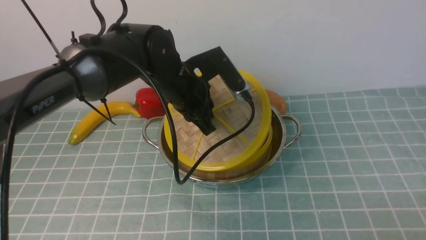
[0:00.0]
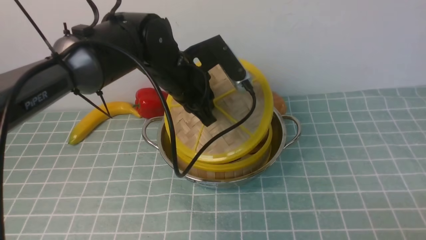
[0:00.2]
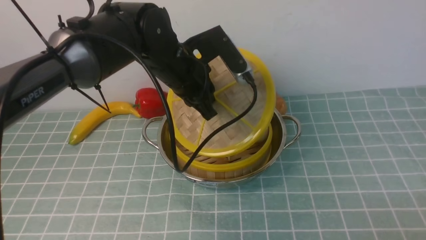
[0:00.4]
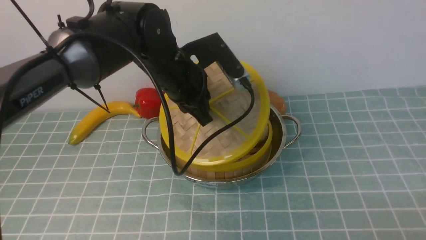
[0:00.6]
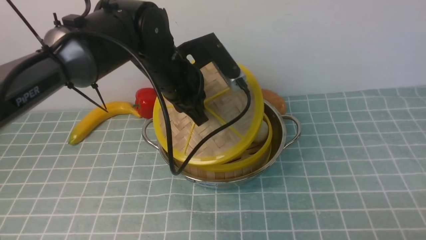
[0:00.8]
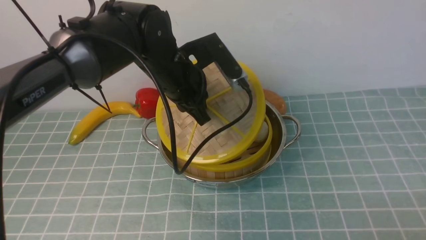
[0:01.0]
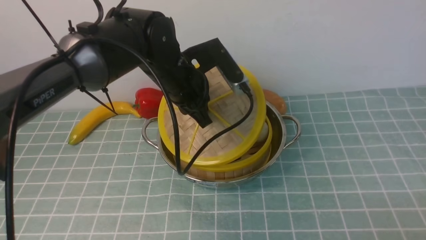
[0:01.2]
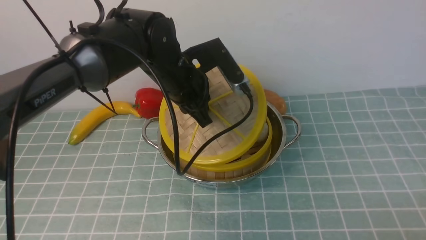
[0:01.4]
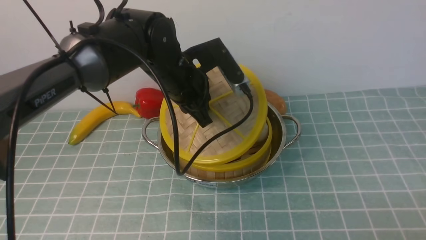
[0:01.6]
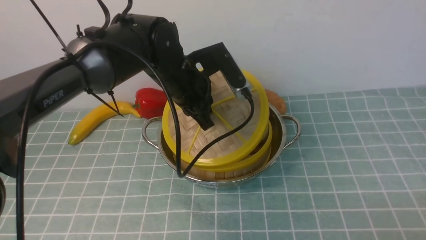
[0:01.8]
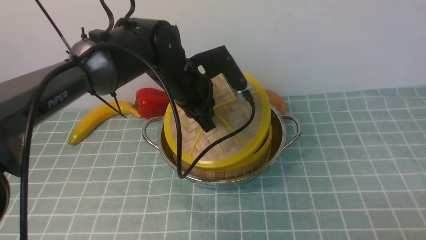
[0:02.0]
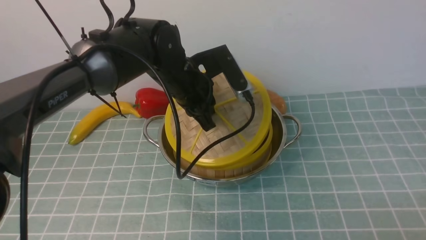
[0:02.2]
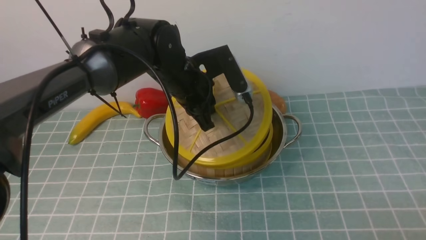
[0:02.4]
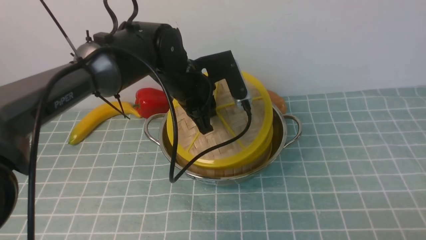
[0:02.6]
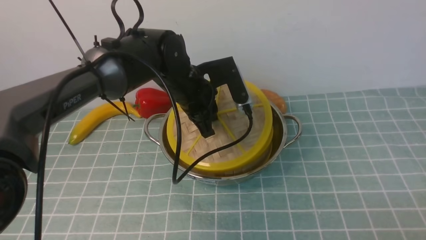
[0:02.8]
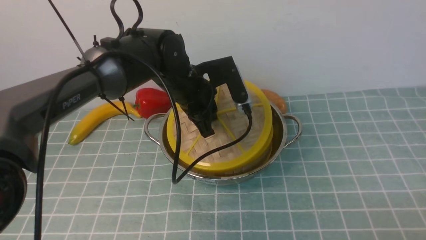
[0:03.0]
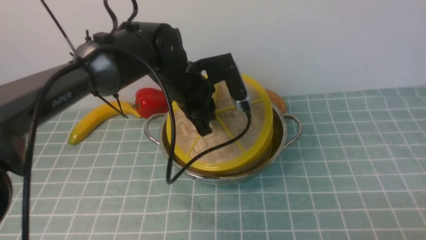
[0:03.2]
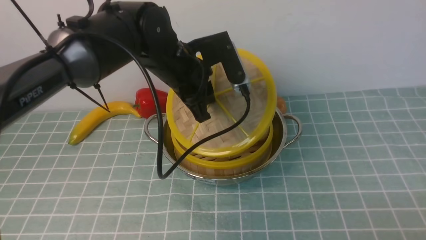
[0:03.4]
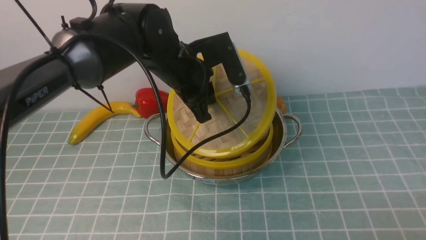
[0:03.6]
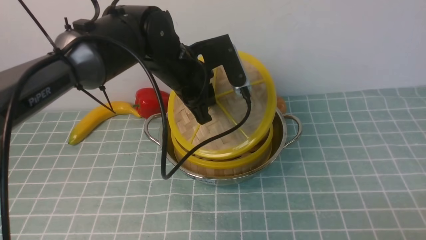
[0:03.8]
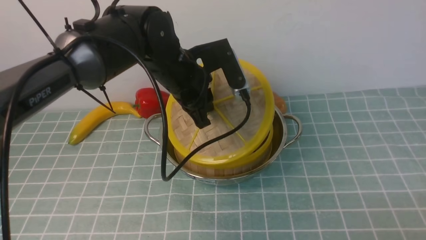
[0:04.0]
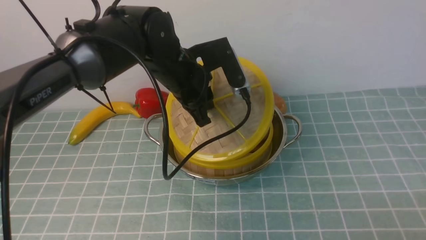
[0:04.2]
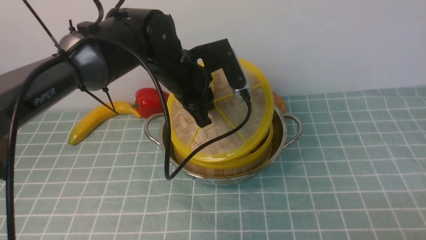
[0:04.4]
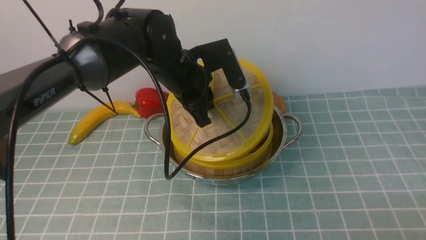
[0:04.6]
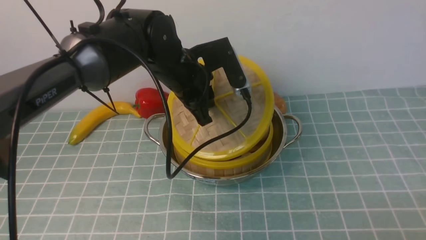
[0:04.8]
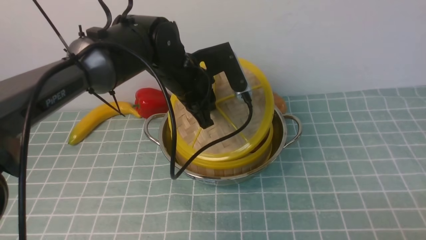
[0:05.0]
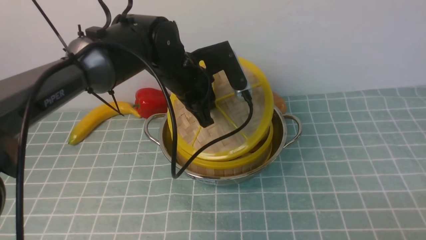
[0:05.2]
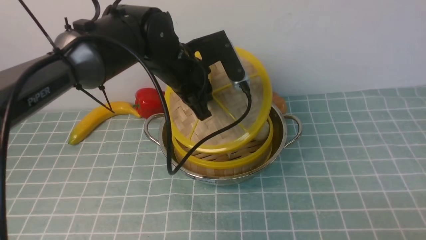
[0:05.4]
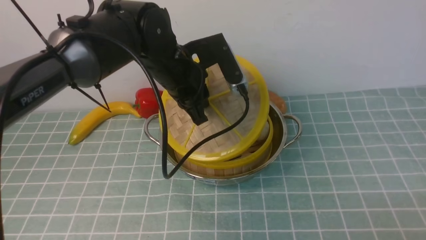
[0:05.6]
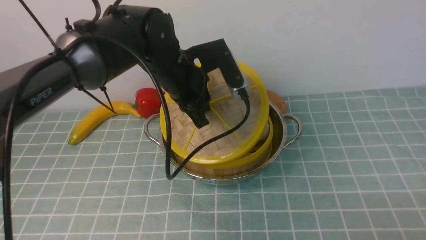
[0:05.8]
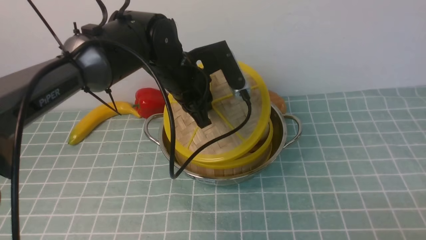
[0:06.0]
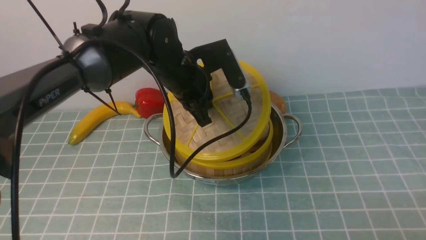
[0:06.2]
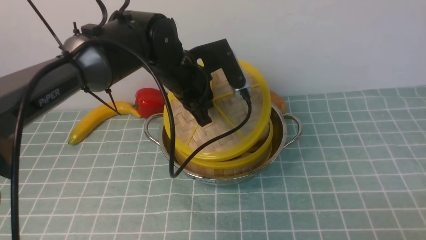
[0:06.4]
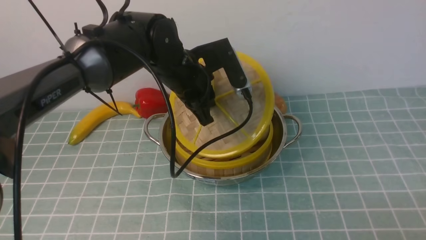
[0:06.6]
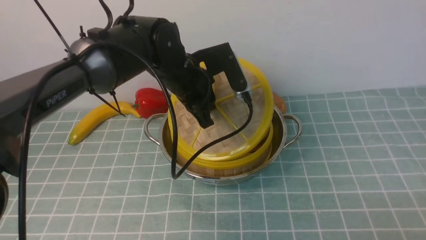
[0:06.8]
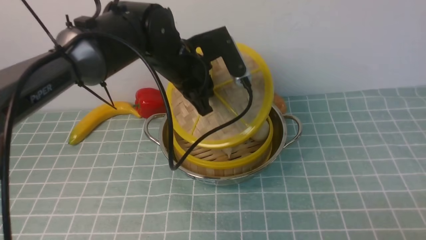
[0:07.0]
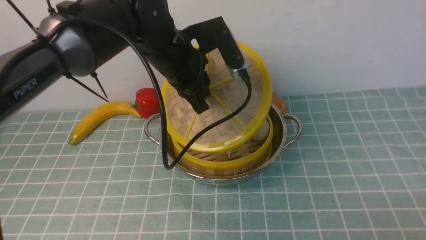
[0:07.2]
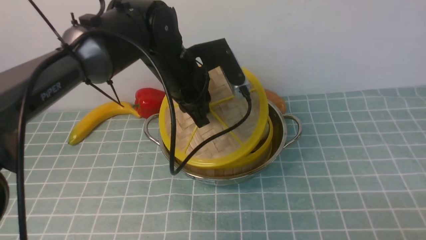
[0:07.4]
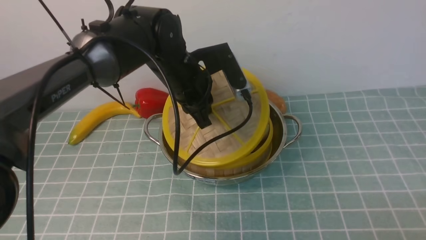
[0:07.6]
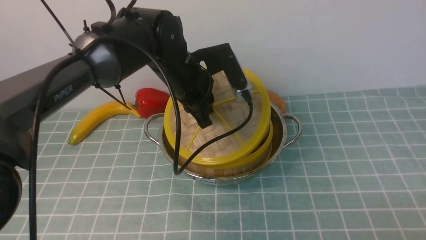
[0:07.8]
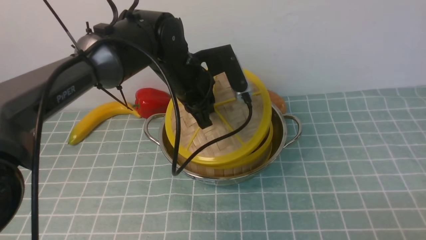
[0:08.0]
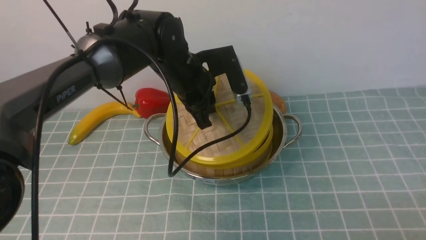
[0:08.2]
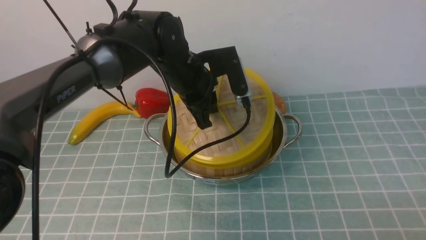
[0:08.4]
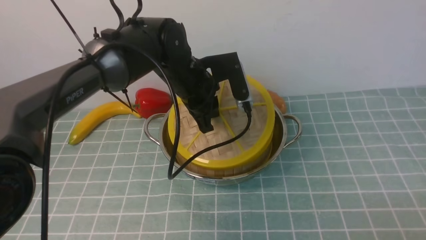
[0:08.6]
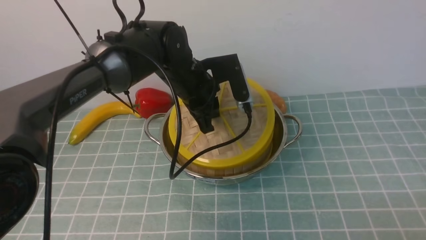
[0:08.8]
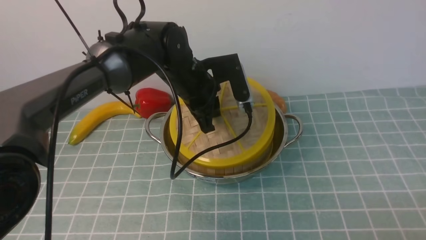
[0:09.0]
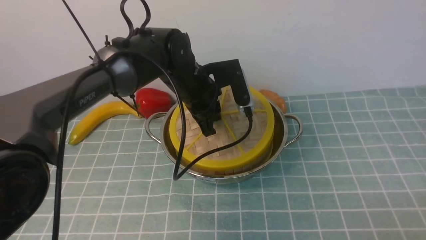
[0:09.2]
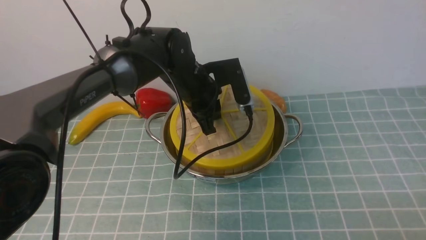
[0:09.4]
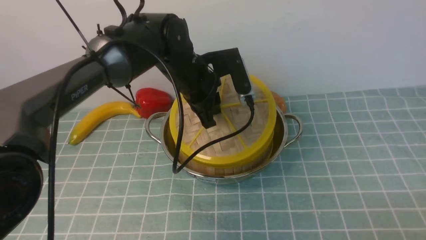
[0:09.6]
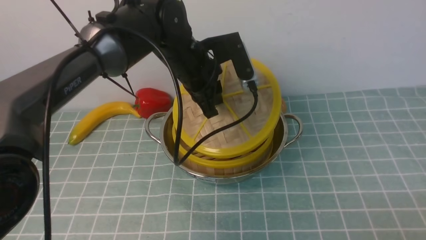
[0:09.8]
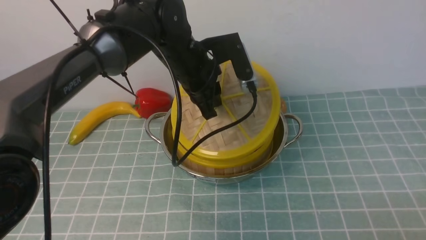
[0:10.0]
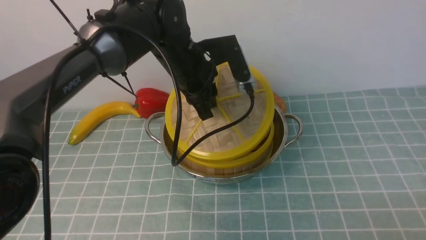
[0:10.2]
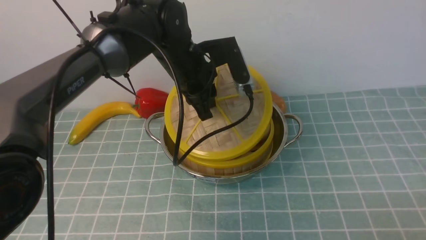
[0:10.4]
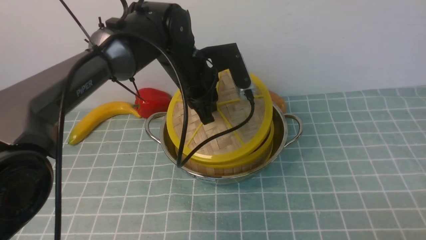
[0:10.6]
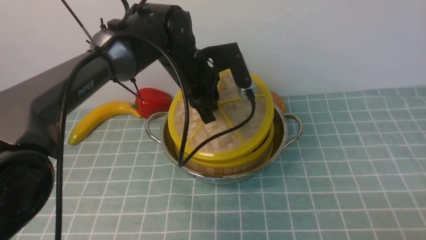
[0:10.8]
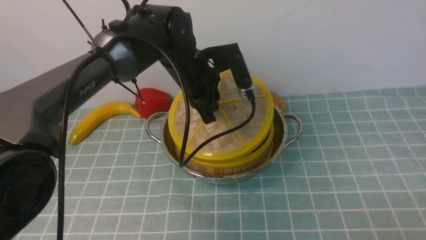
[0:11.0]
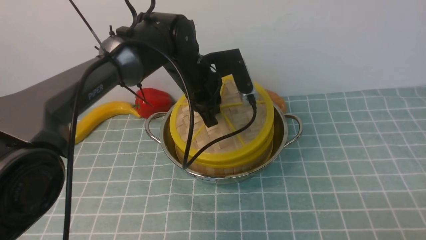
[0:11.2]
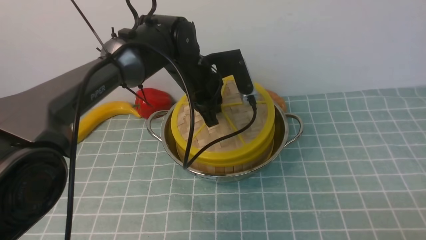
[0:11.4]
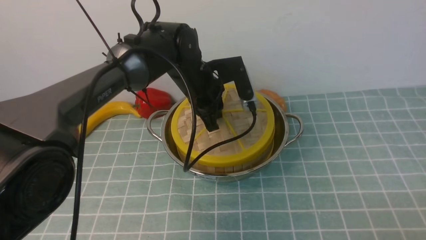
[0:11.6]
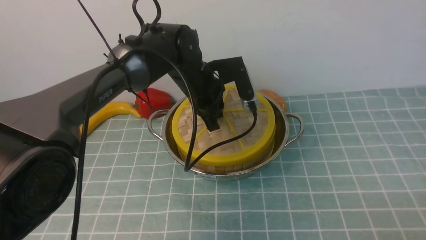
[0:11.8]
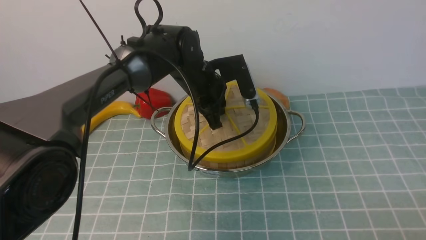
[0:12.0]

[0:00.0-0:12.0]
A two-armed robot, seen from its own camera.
Task of the whole recording: place the steamer in the pot on the blue tablecloth, and put the lid on the steamer.
0:00.0 to 0:04.4: The grippers make only small movements.
0:04.4 to 0:06.0: Both grippers stay put.
0:06.0 to 0:10.4: There are only small adjustments of the grippers.
0:10.4 to 0:12.0: The left gripper moves about 5 cm.

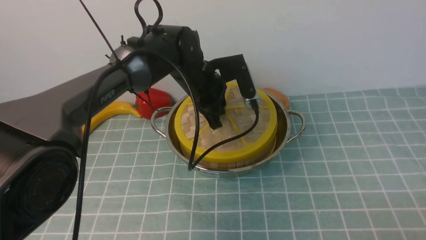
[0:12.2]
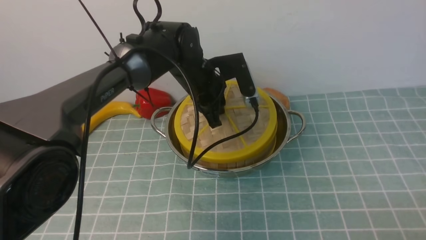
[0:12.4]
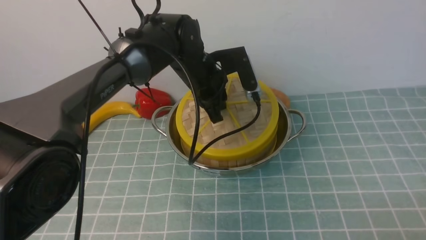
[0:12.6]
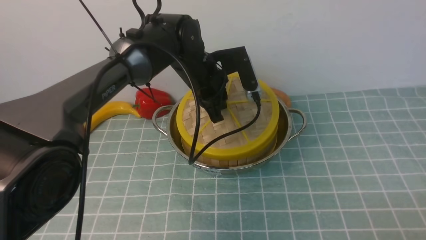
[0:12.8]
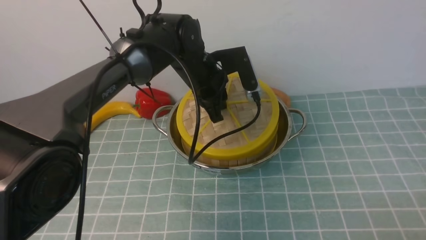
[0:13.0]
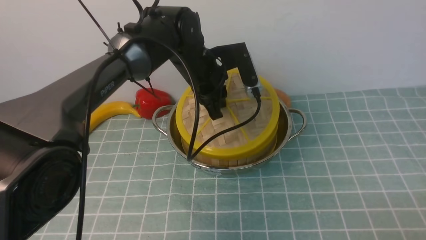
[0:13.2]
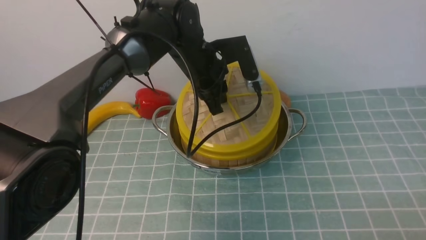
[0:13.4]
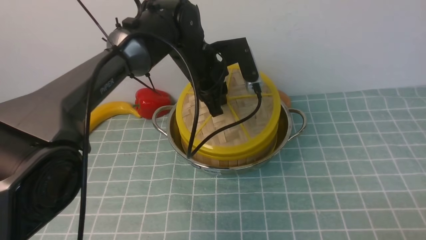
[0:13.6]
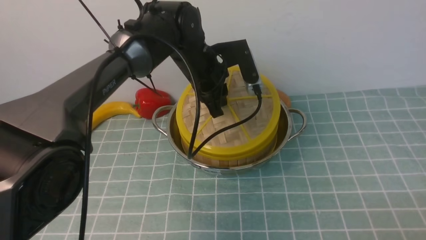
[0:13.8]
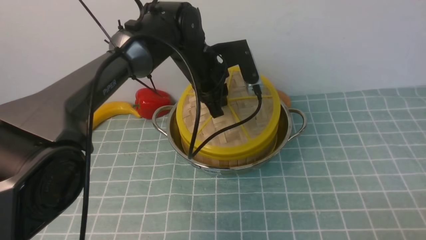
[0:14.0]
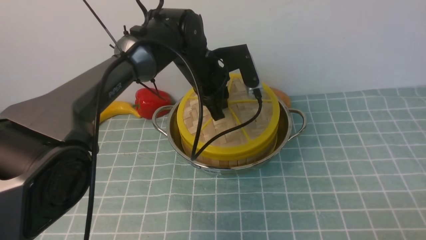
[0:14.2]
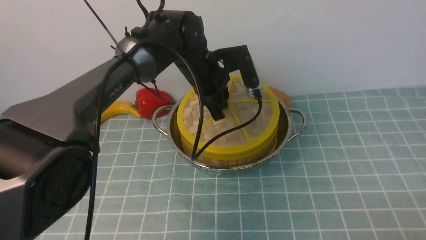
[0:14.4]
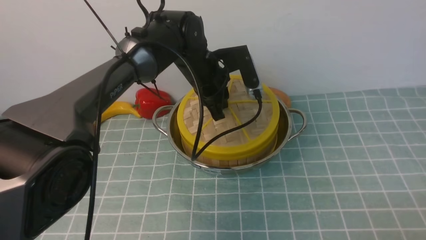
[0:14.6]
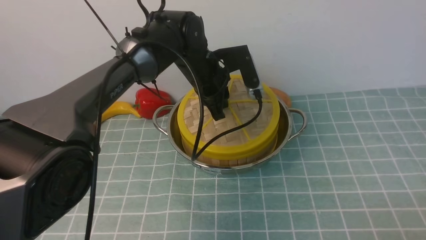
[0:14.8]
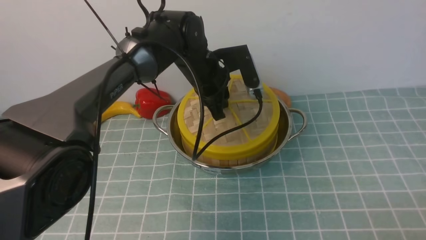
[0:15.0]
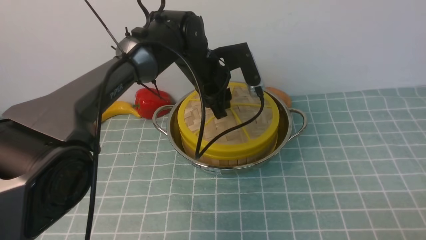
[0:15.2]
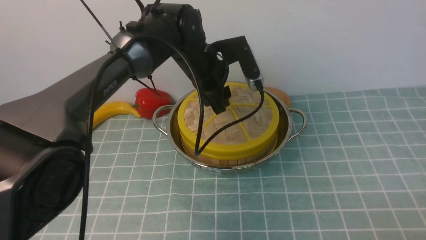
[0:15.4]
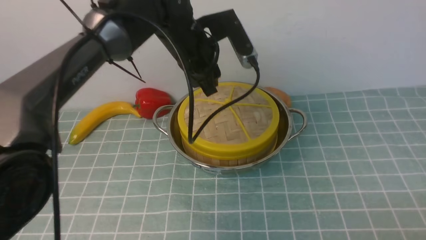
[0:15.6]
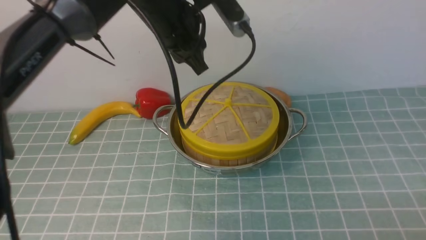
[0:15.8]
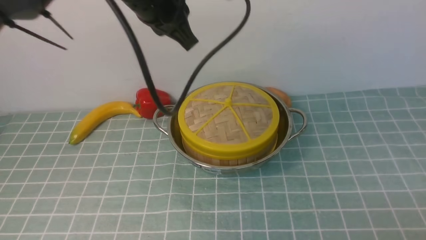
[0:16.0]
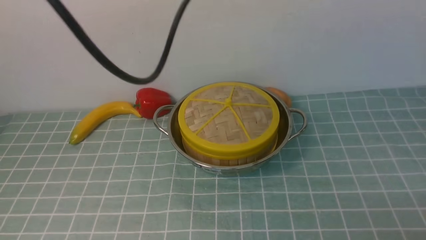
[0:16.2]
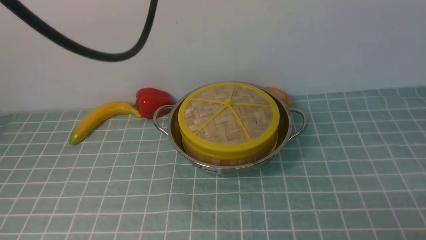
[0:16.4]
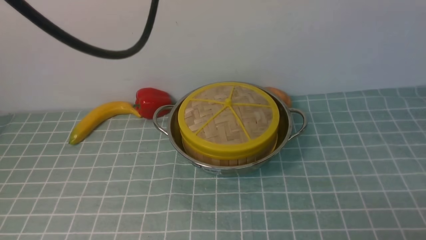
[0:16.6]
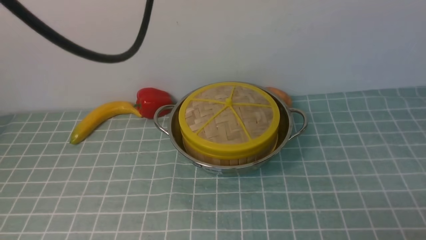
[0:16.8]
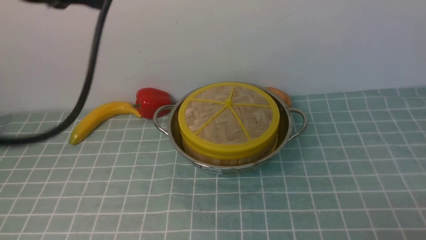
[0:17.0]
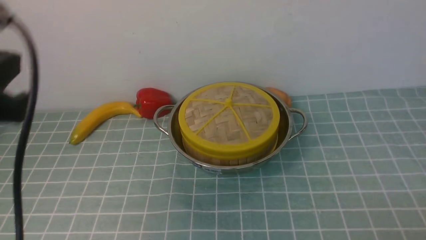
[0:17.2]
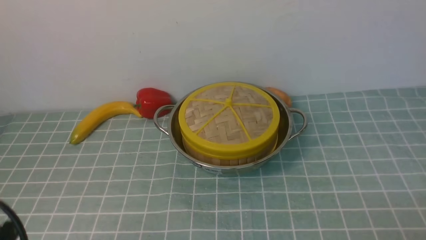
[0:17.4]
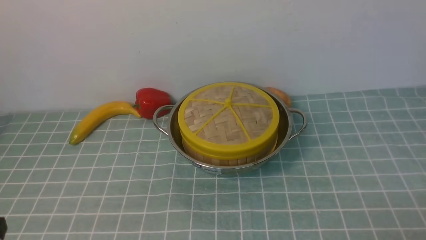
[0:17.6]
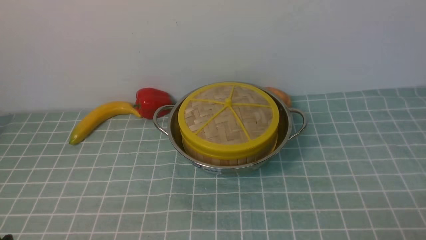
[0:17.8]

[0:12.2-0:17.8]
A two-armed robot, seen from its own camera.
Task of the whole recording: place the steamer in the pot on the blue tablecloth, and put the lid on the steamer.
Step, 0:12.2 to 0:15.8: use the left arm to place the steamer lid on the steamer.
0:12.2 to 0:15.0: The grippers stay close to where they were, moving slightly.
0:15.0 to 0:16.4: The left gripper goes roughly 30 cm upward and backward, and closes up.
0:16.4 to 0:17.8: The left gripper is displaced downward, backward and to the left by about 40 cm.
